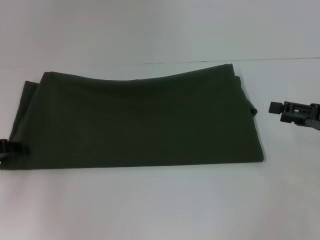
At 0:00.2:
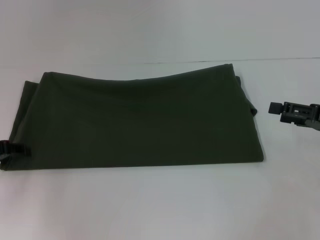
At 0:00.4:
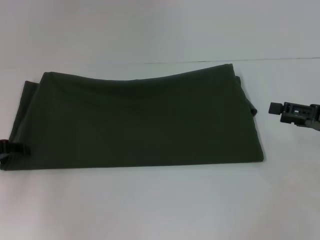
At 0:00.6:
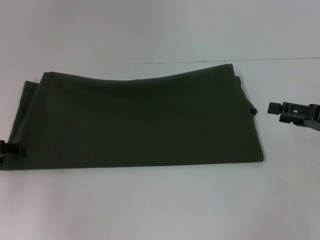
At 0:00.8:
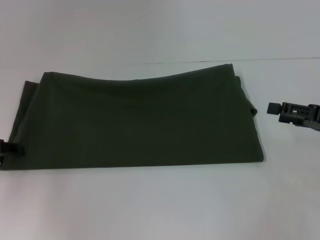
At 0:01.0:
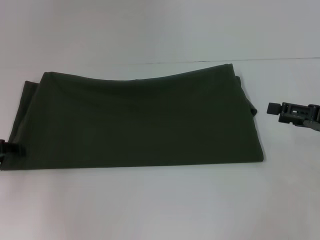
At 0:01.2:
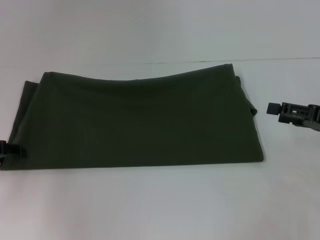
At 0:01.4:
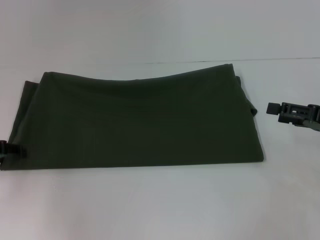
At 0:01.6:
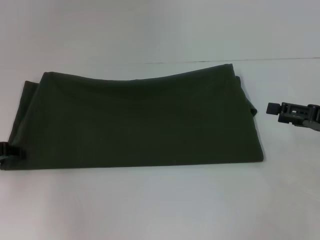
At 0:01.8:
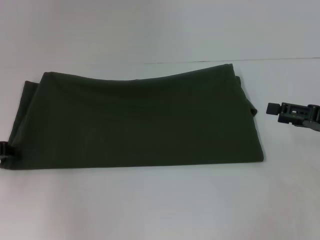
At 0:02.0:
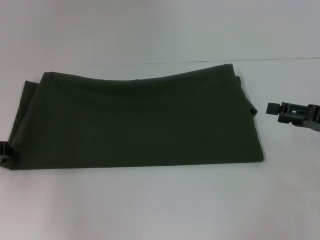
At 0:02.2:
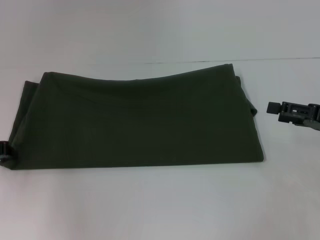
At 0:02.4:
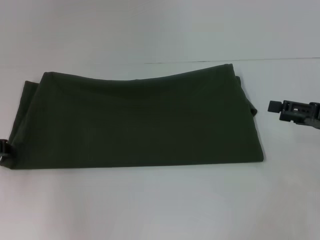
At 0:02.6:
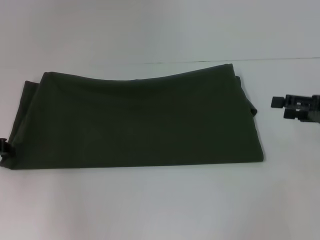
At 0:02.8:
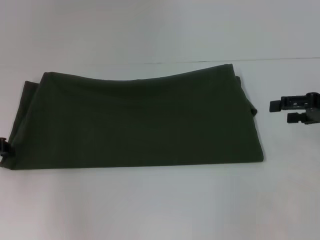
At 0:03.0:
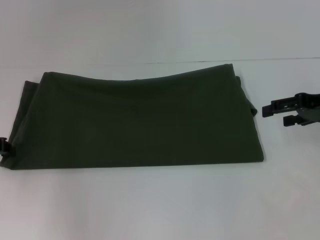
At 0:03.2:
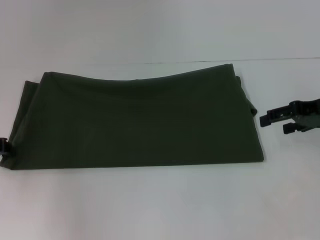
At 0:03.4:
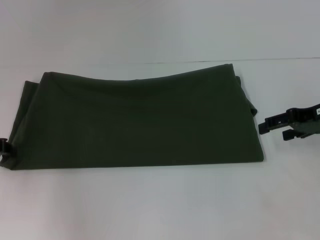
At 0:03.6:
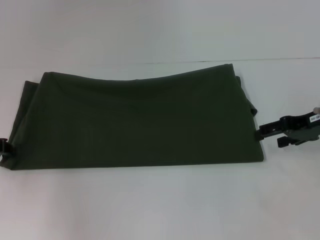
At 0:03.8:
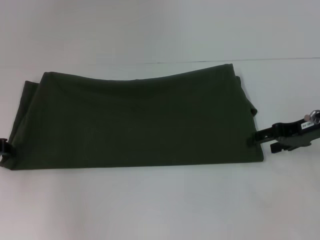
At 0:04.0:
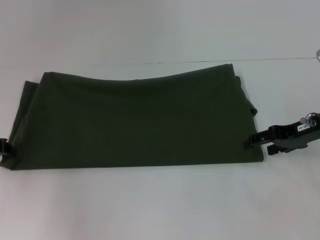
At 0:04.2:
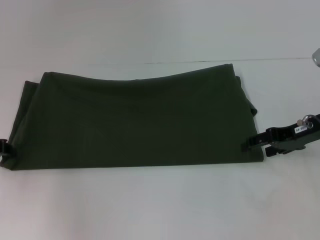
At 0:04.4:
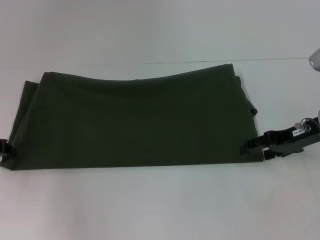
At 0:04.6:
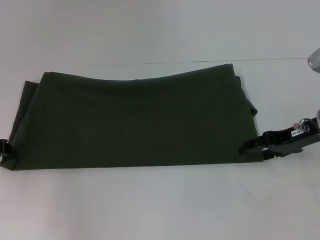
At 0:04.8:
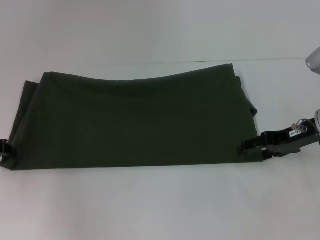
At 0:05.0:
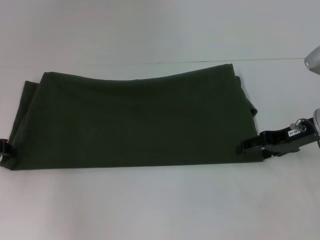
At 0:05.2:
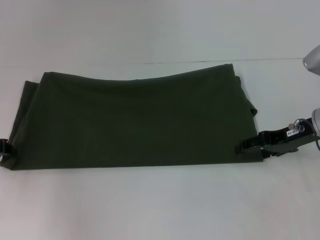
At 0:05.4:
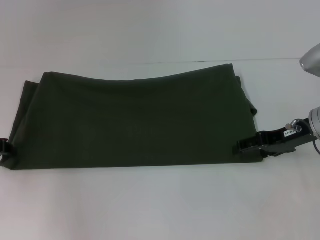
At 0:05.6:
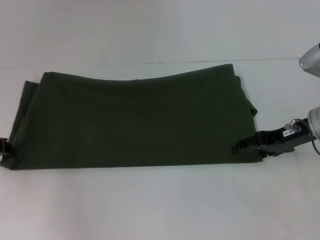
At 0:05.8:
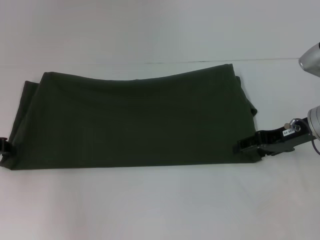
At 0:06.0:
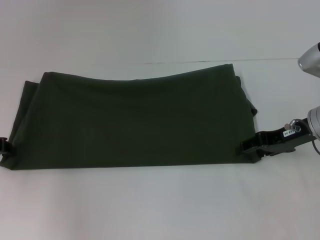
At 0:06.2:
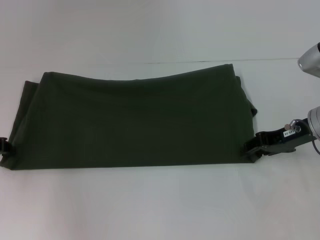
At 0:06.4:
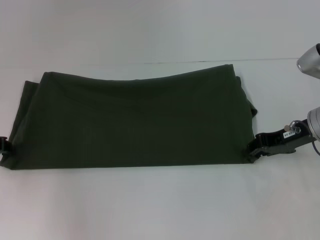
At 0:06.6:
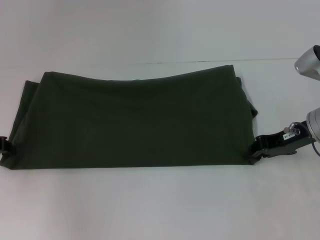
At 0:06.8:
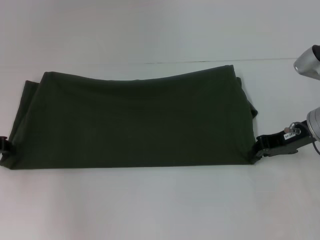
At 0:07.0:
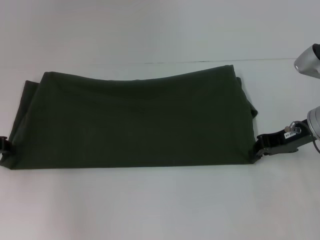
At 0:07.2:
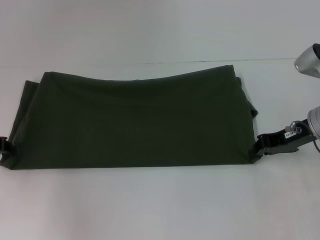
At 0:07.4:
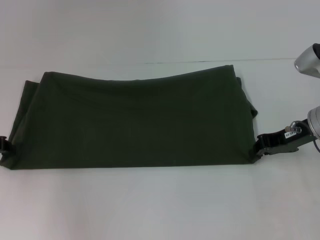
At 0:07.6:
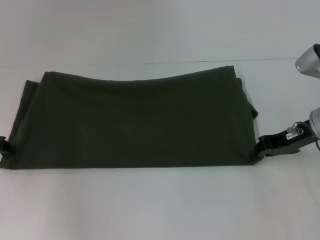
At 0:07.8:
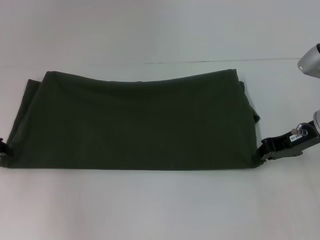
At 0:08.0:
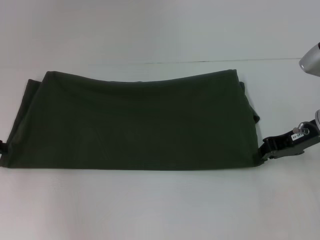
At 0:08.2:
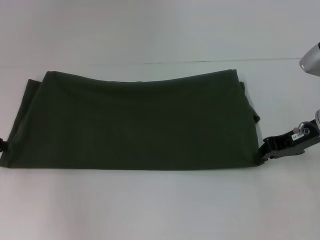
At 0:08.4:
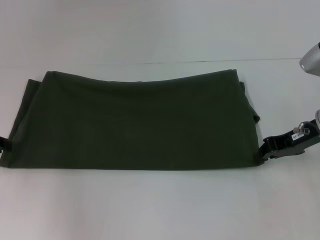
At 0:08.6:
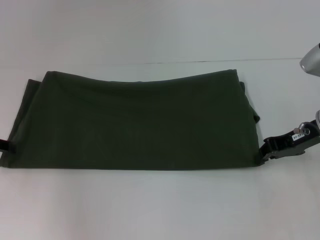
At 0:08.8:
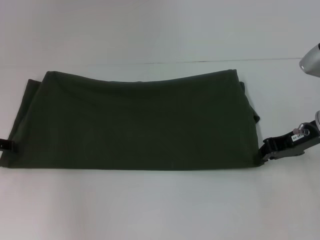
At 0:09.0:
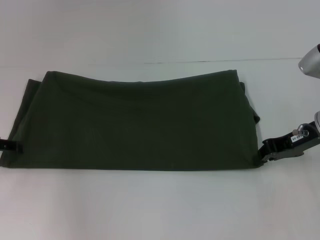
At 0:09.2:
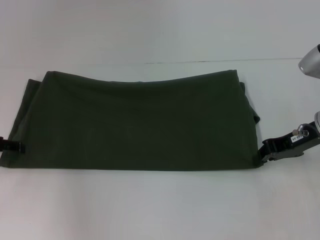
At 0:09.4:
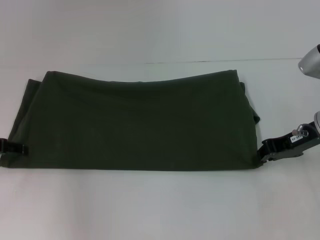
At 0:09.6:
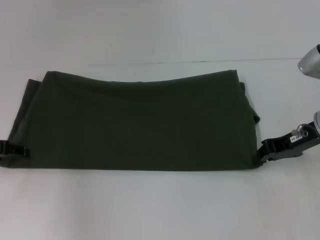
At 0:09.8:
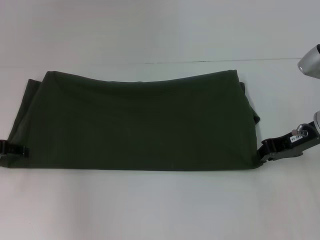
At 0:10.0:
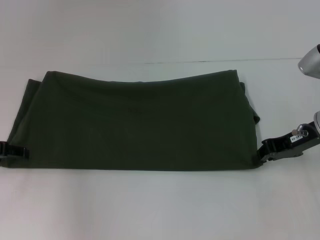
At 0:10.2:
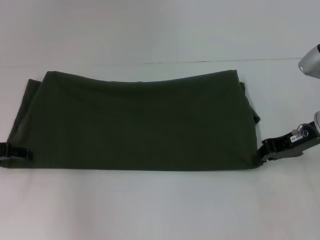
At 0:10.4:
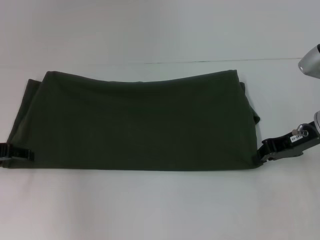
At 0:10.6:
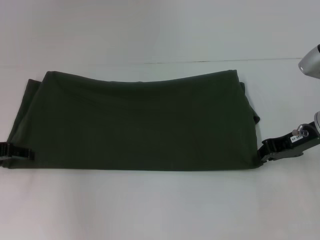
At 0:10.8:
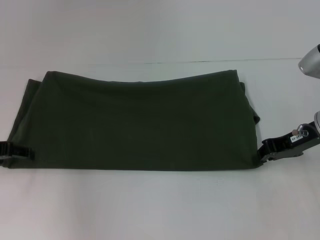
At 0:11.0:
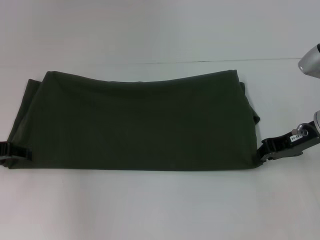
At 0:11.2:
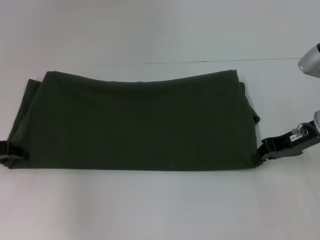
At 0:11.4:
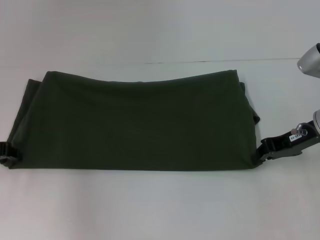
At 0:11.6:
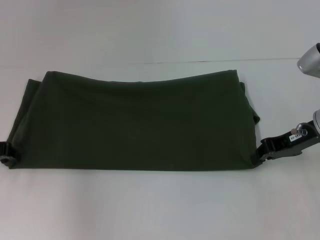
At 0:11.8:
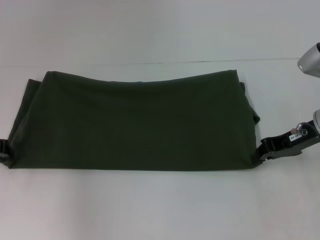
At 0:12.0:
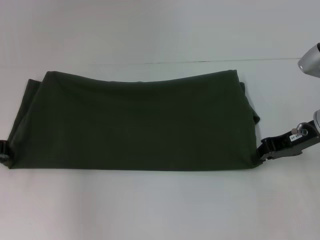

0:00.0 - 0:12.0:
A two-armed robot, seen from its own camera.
0:01.6 - 0:03.0: The right gripper travels forward and upward by approximately 10 cm.
0:03.0 - 0:04.4: The right gripper shifts by some 5 cm.
0:04.4 - 0:06.0: Both grippers stay about where they are.
0:06.0 - 0:07.6: The right gripper closes.
0:07.6 - 0:09.0: The left gripper opens up.

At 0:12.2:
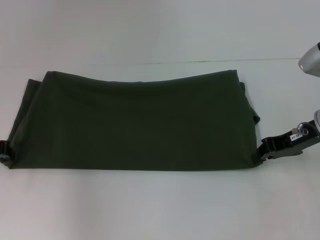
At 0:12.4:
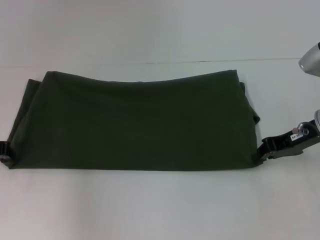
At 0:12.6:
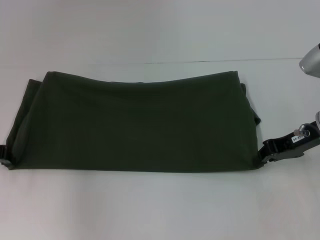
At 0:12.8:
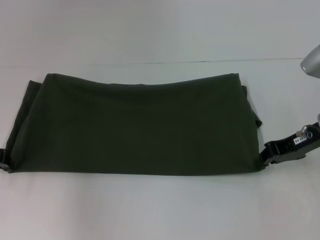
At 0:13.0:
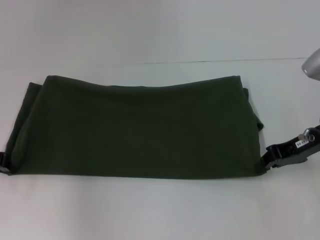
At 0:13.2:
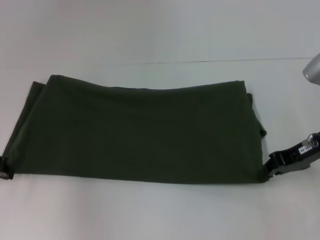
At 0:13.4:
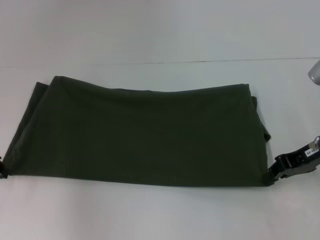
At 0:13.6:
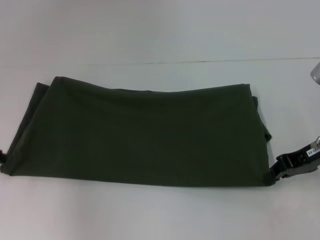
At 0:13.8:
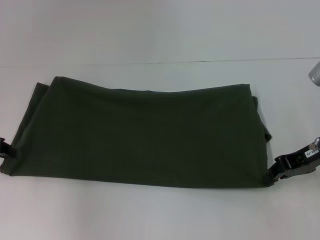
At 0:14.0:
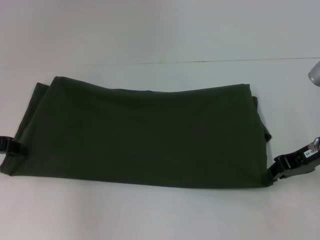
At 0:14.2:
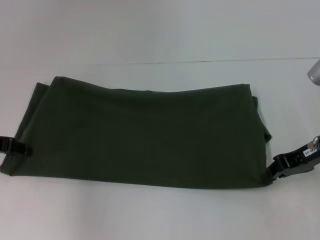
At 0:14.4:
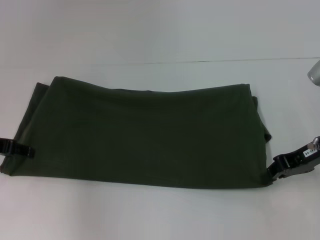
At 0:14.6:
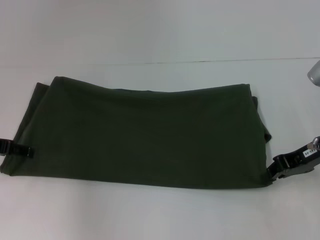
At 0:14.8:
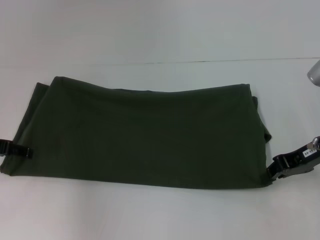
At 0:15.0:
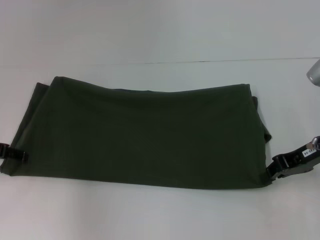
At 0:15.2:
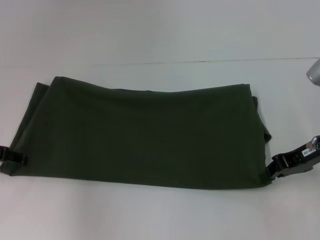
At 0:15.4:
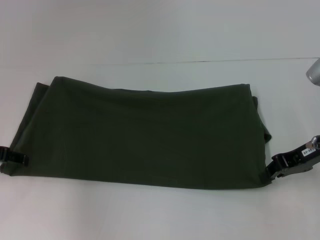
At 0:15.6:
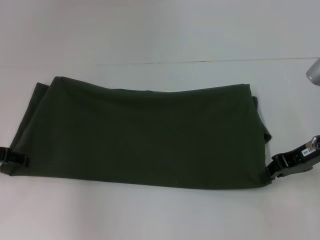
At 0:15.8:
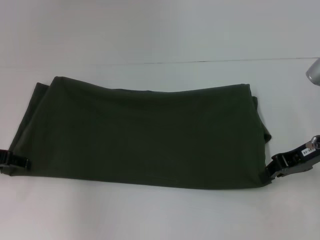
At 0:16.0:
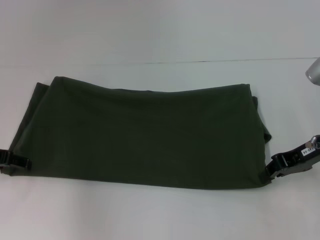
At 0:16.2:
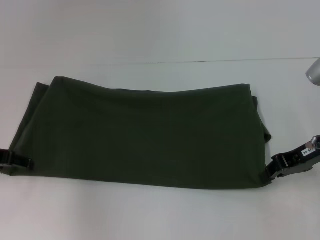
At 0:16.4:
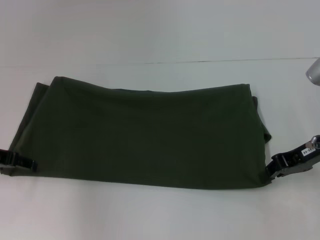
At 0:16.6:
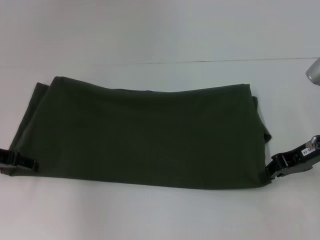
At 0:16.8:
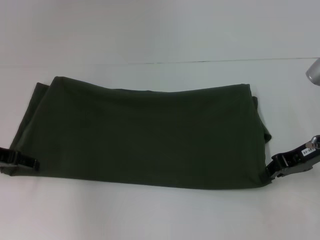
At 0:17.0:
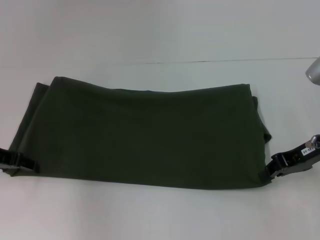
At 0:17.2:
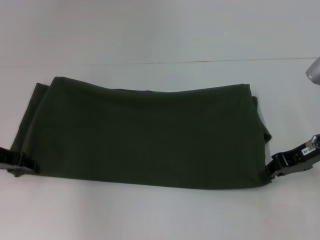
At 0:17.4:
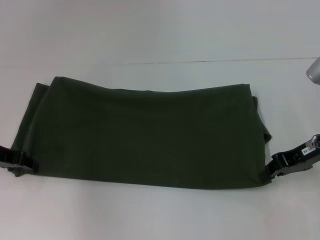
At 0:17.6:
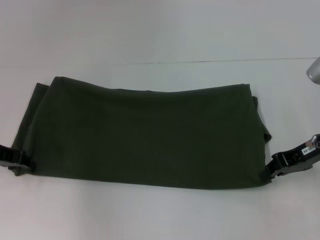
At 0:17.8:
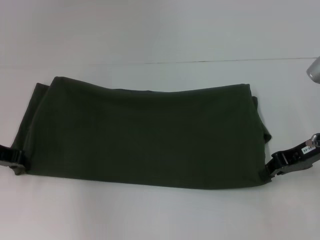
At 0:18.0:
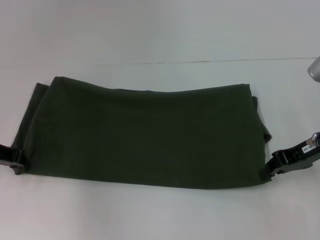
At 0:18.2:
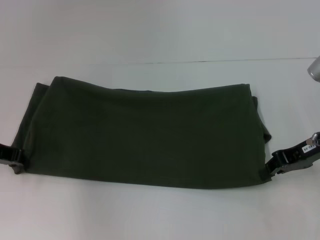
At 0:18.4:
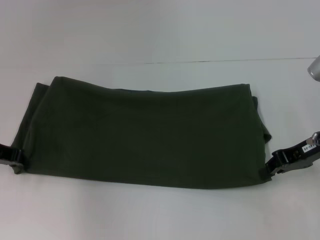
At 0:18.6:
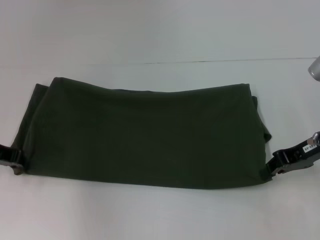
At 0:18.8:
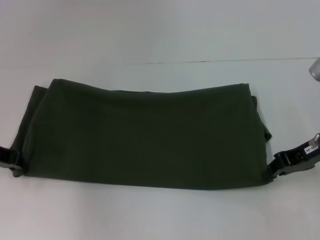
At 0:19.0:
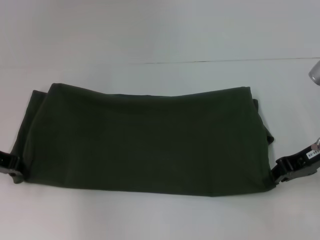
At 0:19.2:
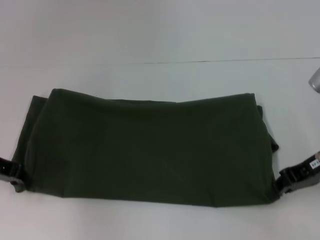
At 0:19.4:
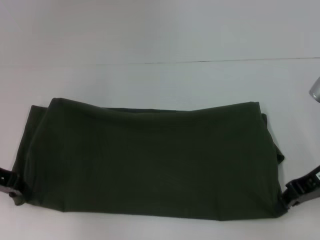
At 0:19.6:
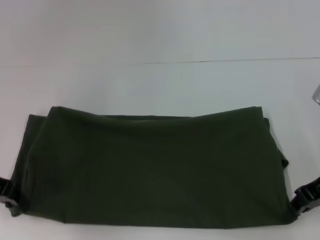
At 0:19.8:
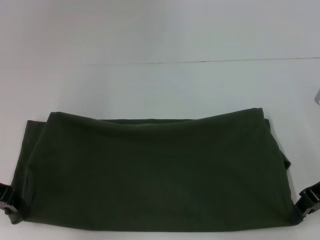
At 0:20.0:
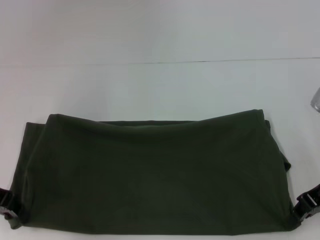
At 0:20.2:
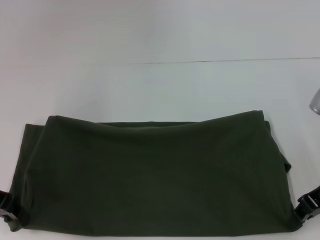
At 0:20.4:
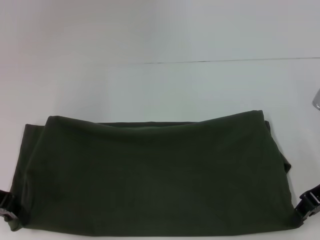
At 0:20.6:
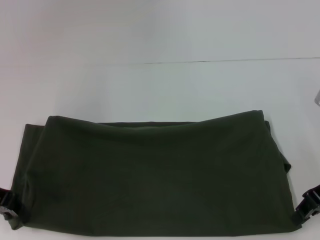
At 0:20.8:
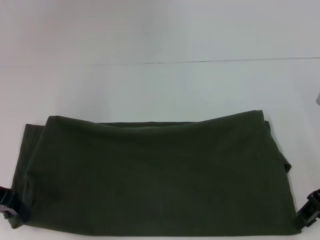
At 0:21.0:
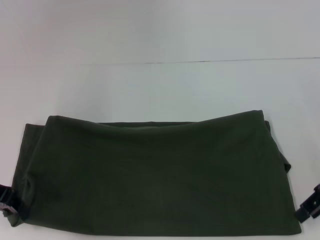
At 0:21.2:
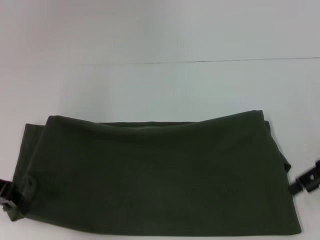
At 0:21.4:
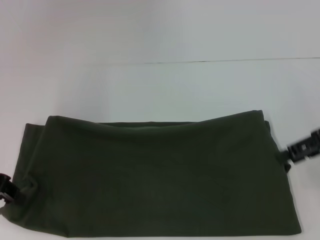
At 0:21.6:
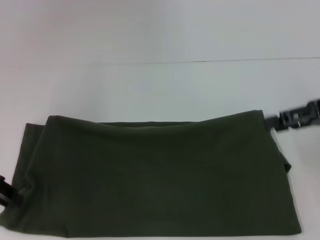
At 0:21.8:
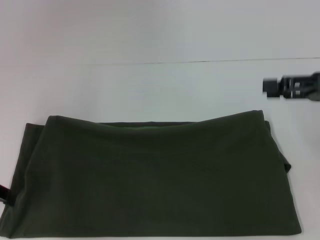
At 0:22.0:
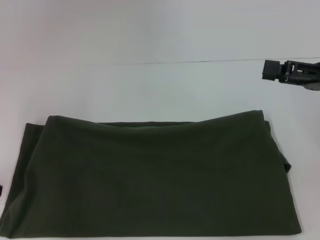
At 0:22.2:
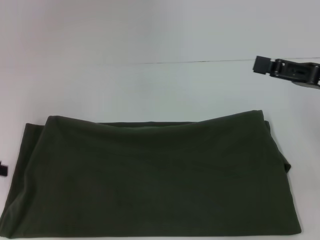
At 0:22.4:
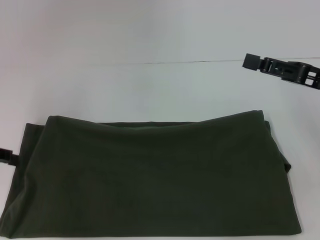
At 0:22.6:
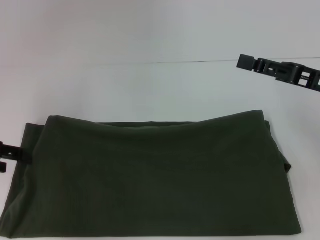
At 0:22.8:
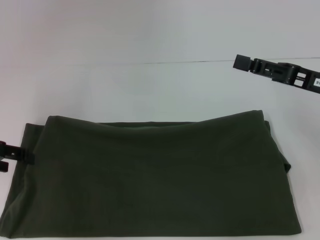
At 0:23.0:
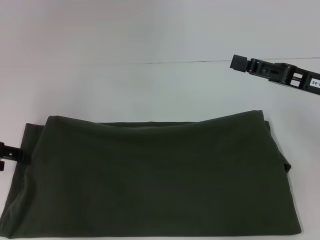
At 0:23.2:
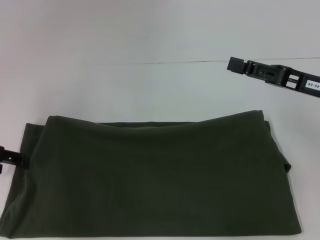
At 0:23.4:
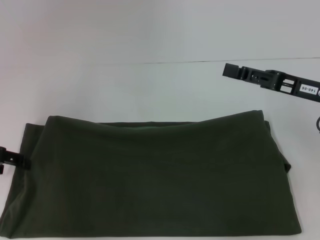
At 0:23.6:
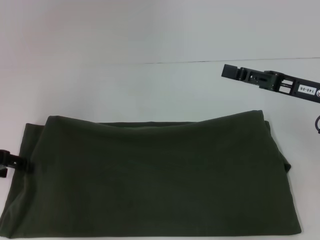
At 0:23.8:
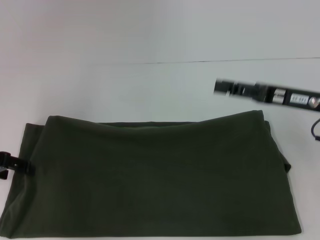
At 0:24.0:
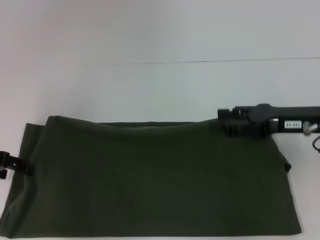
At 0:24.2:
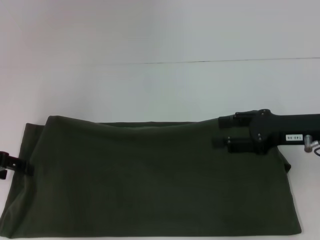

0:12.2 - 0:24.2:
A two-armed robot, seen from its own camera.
0:12.2 - 0:13.8: The grippers move only a little.
0:16.6 - 0:18.2: The left gripper closes.
0:19.8 - 0:21.2: The right gripper opens its fingers.
0:21.2 - 0:22.6: The left gripper opens.
